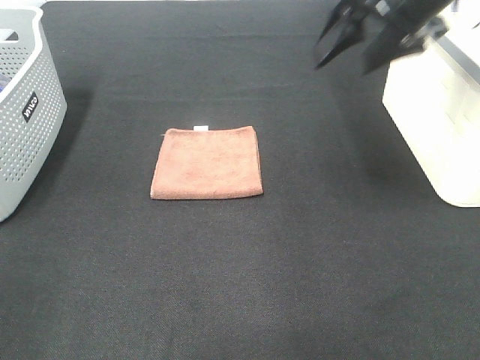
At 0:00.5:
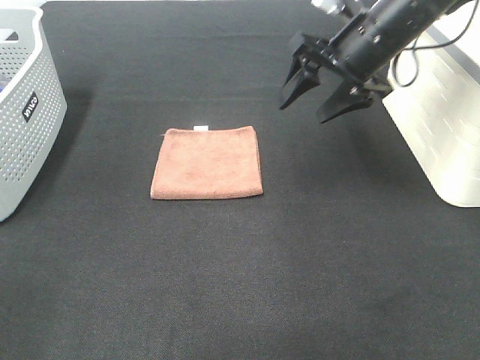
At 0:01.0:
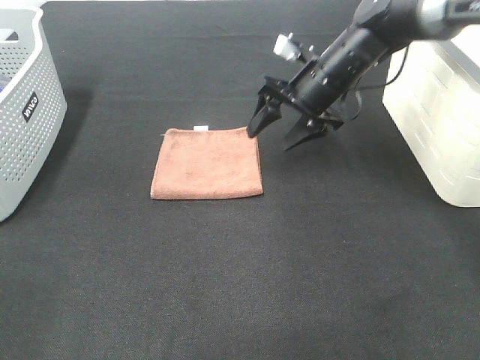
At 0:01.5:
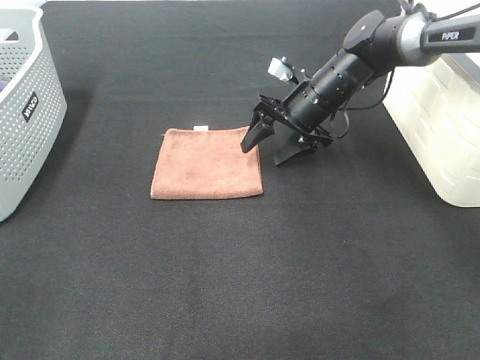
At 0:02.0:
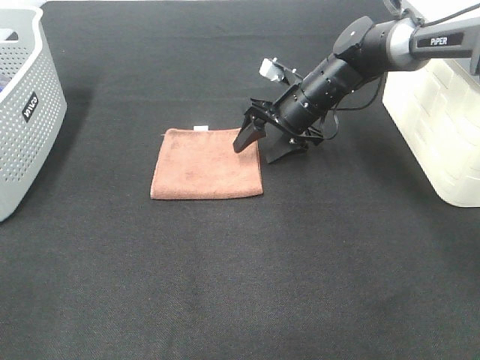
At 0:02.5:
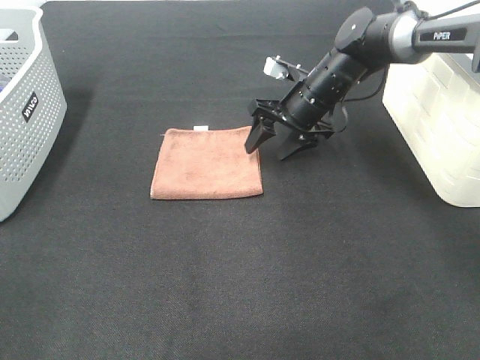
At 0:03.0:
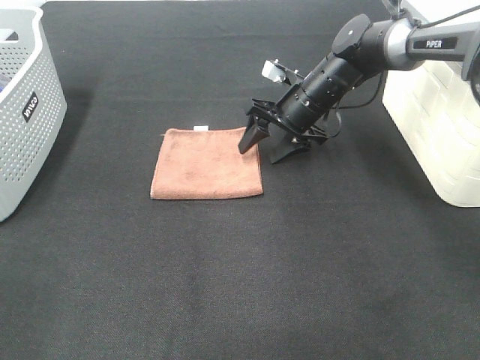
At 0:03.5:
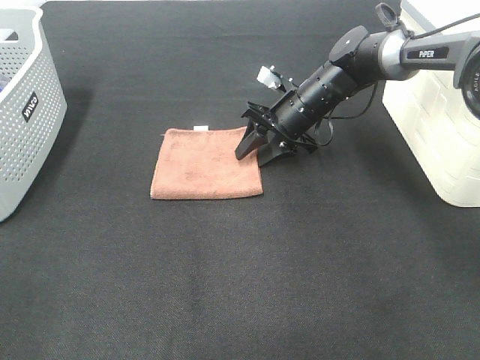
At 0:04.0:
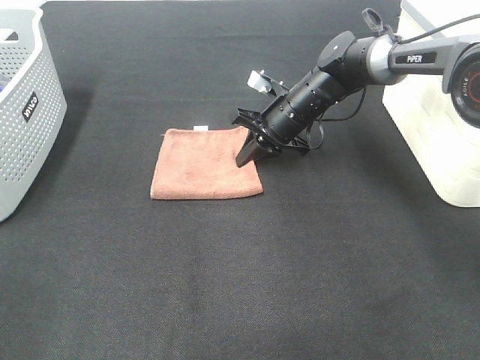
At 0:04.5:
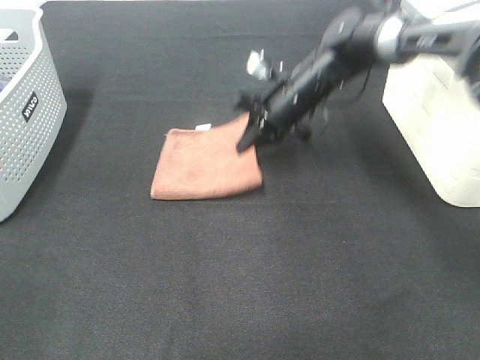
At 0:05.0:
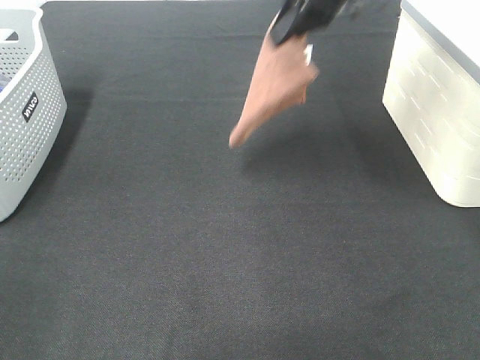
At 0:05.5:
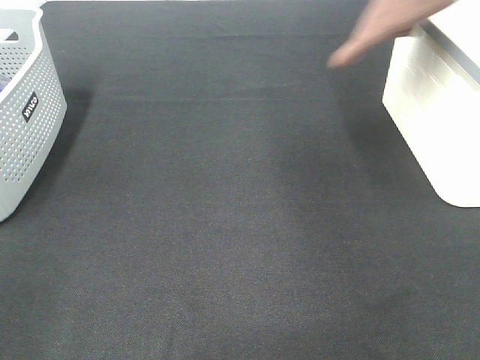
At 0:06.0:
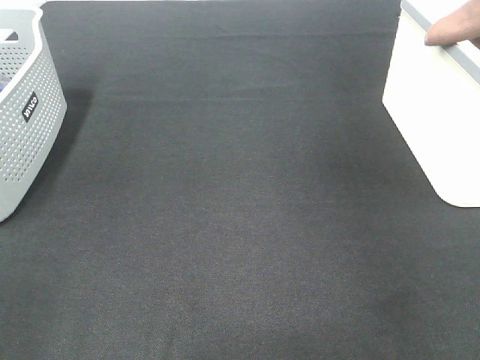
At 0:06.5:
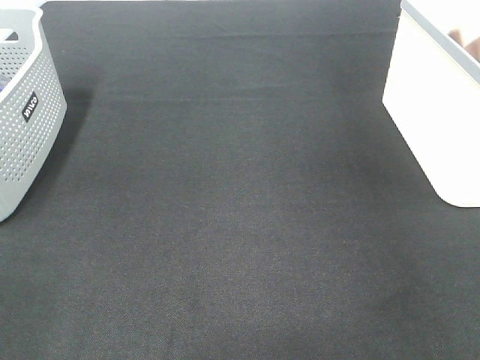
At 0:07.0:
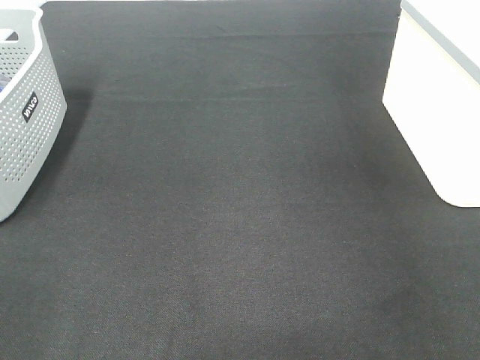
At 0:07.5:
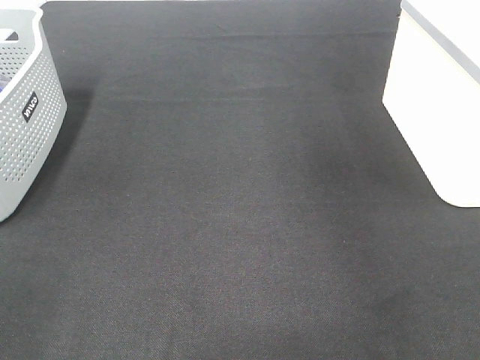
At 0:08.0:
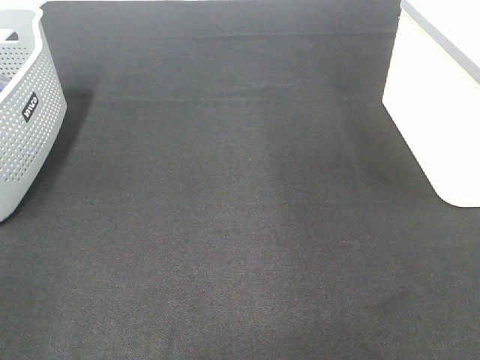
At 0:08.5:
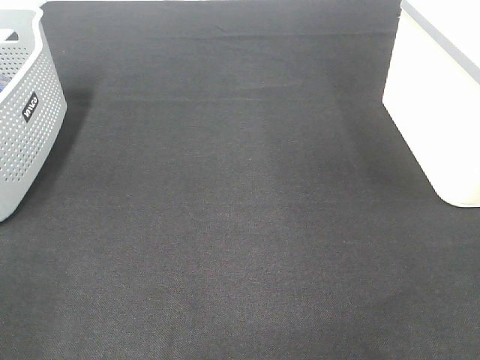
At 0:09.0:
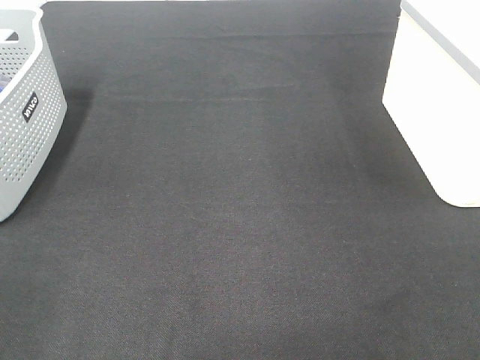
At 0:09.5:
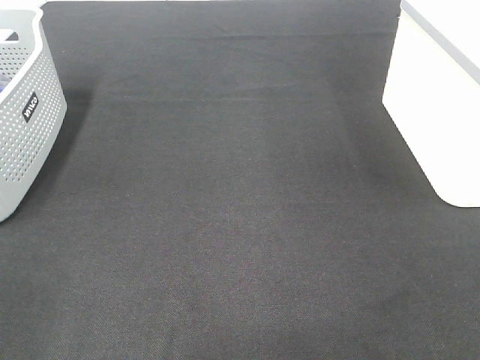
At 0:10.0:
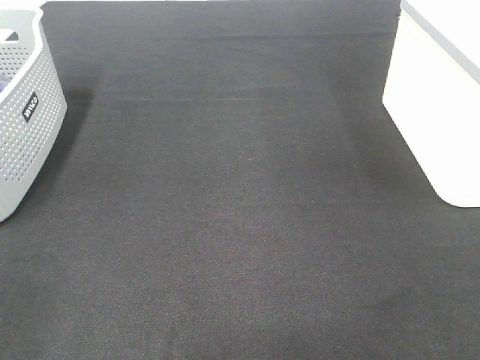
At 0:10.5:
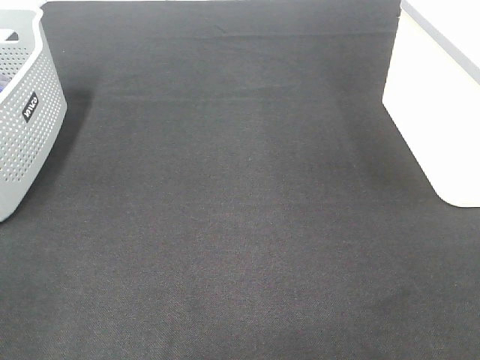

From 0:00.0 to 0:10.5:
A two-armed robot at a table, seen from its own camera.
Step, from 0:00.0 to 0:04.0: Right hand: grab the folded brown towel.
Step, from 0:04.5 to 0:06.5: Right hand: place the brown towel in right basket.
From 0:00.0 to 0:02.0: The right gripper goes about 20 cm downward and forward.
From 0:02.0 to 0:04.0: The right gripper closes up.
From 0:04.0 to 0:06.5: The right gripper travels to the right and upward by approximately 40 cm.

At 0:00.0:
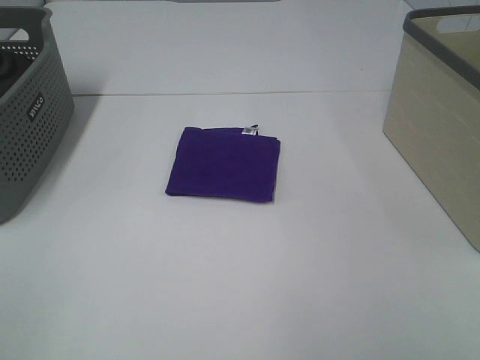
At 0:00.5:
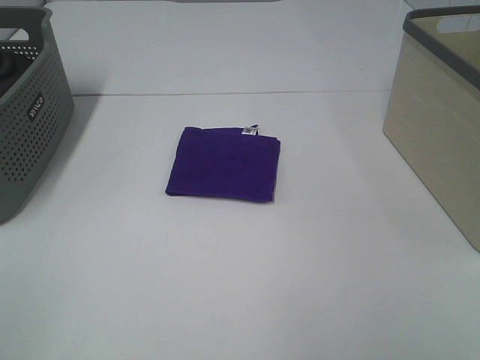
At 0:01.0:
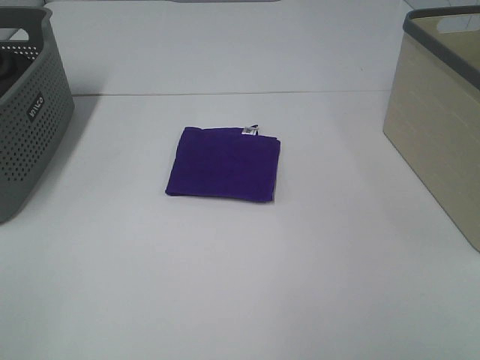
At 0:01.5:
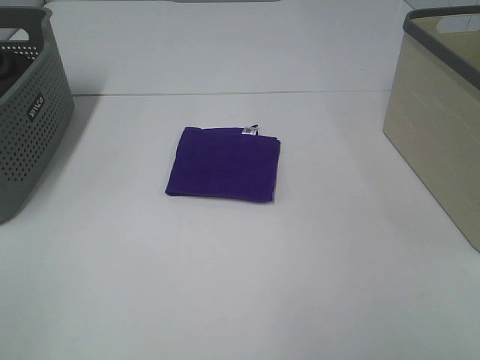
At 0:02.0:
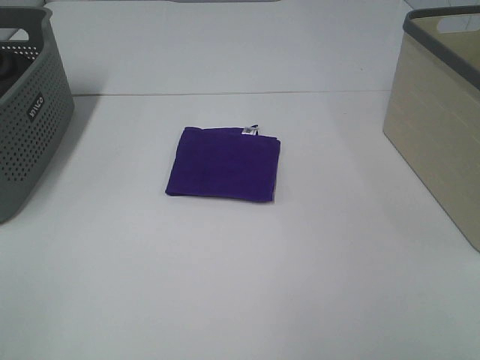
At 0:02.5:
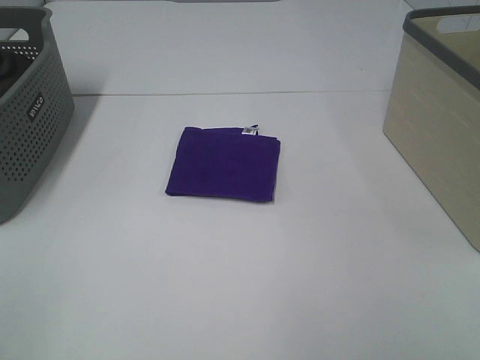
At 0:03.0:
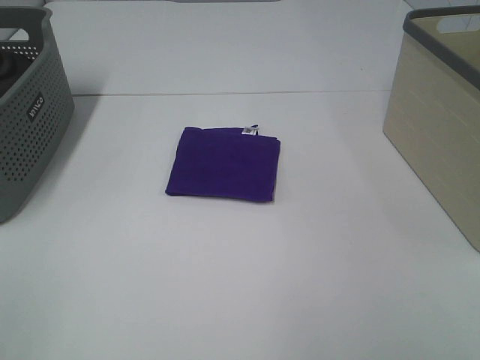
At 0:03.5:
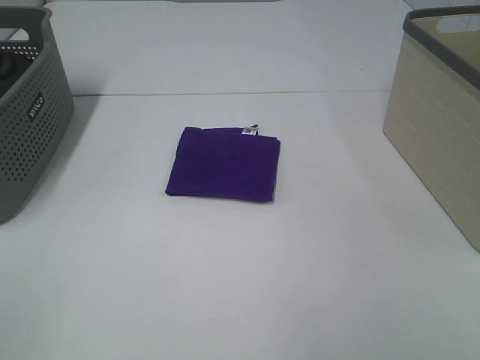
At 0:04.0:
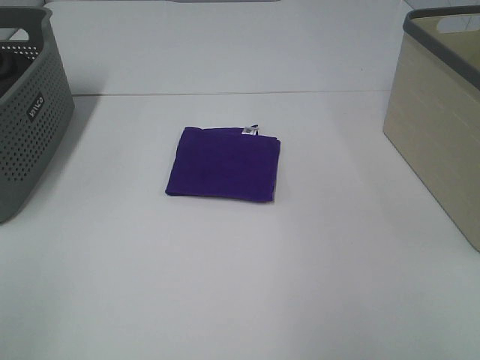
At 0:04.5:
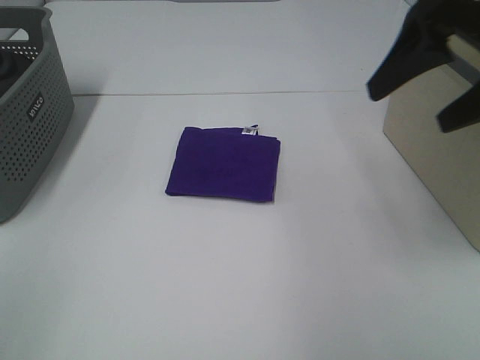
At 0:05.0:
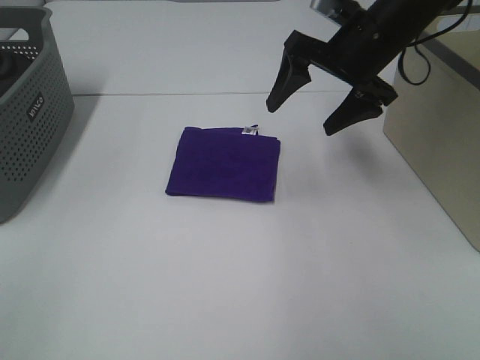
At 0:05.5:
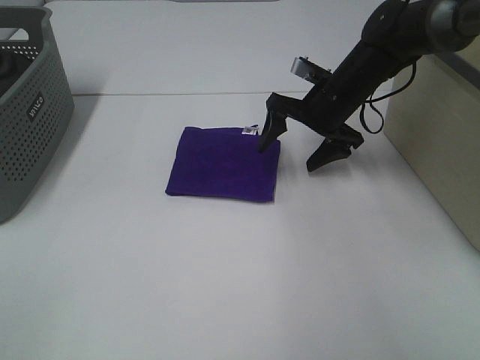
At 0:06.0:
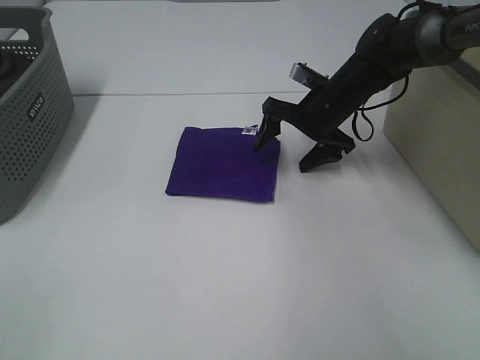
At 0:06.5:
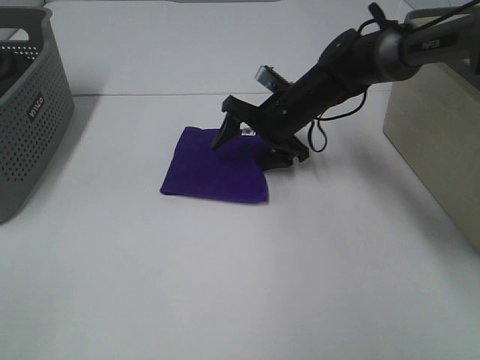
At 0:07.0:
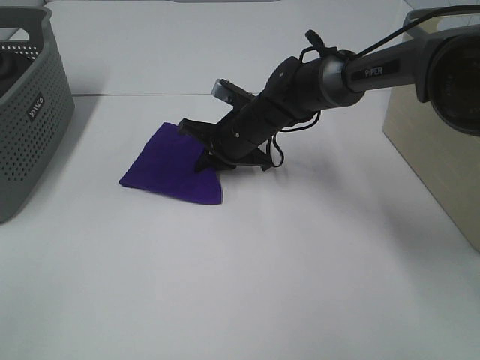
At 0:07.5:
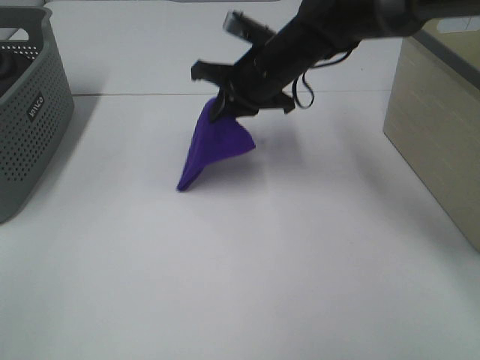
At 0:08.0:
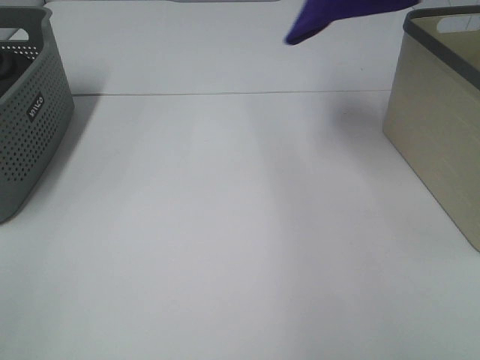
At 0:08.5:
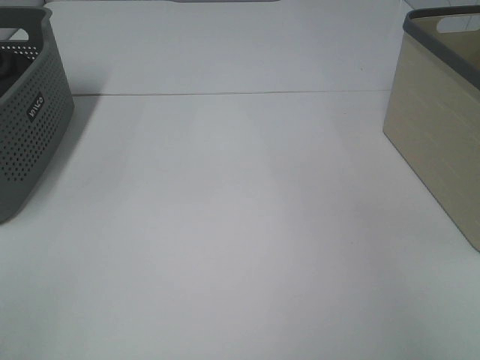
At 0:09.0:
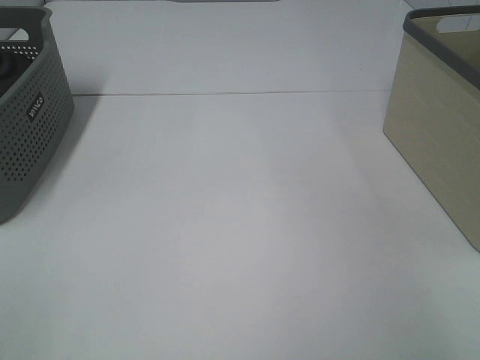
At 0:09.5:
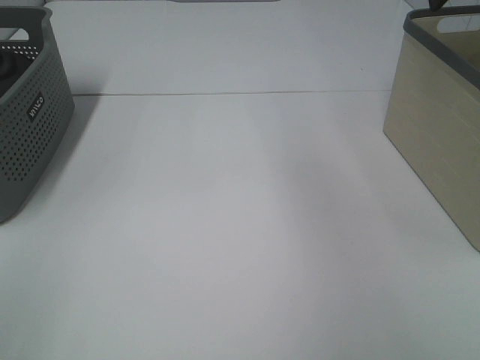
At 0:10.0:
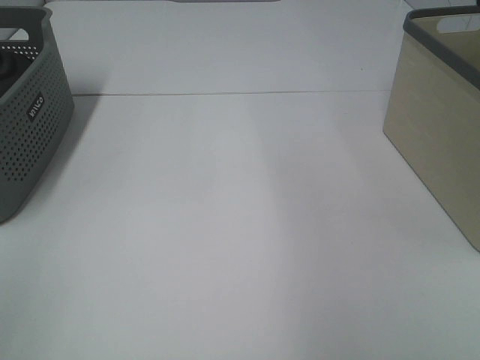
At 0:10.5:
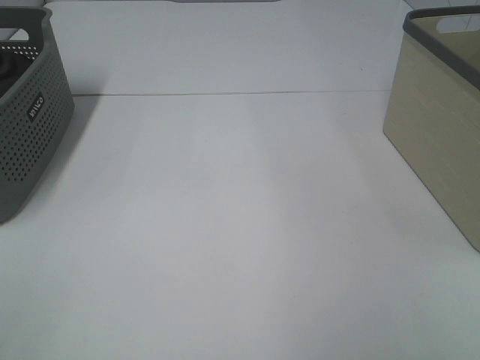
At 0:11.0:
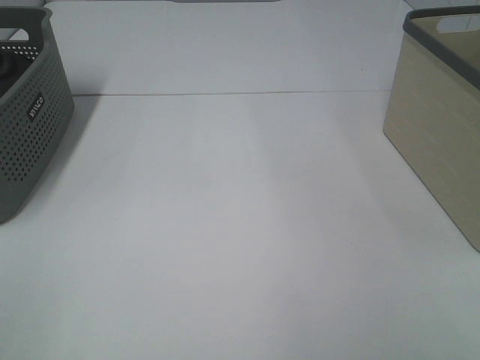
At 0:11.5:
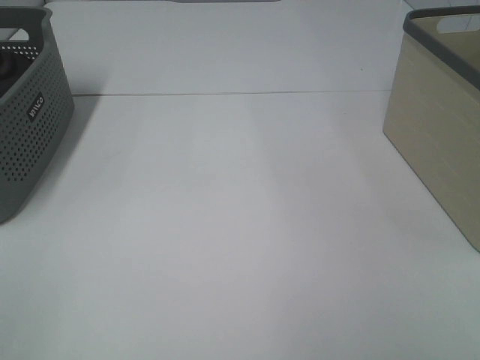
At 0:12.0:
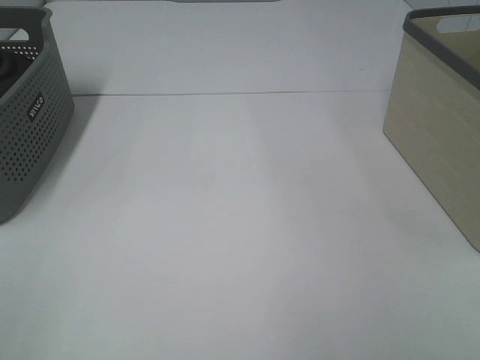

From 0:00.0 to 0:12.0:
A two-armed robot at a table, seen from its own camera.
Step, from 0:00.0 to 0:06.5: Right hand: grab the folded purple towel.
Step, from 0:07.0 to 0:09.0: Right hand: place the purple towel in right basket.
From 0:00.0 to 0:02.0: The two grippers keep their place.
From 0:04.0 to 0:06.0: The right gripper heads forward, downward and to the left, covering some 40 cm.
From 0:06.0 to 0:08.0: The right gripper shifts roughly 30 cm upward, and closes its fingers.
From 0:08.0 to 0:10.0: The right gripper goes some 15 cm backward, reaches some 20 cm to the right, then returns, and opens up.

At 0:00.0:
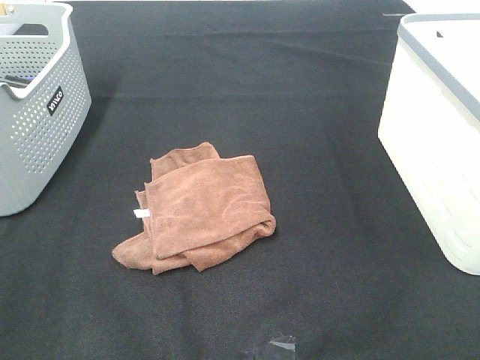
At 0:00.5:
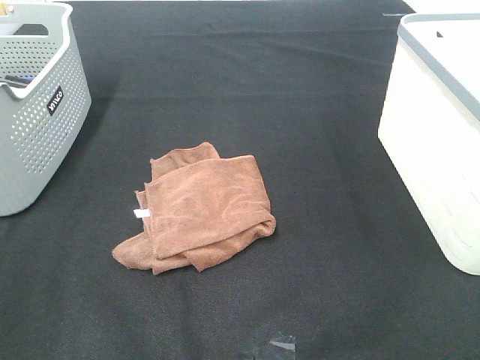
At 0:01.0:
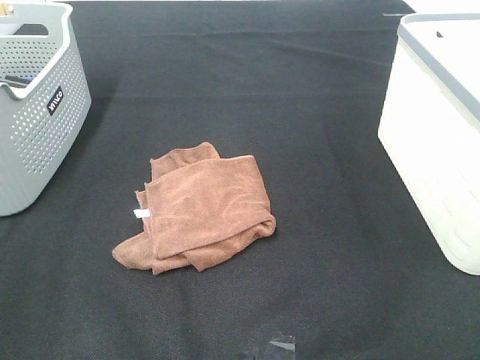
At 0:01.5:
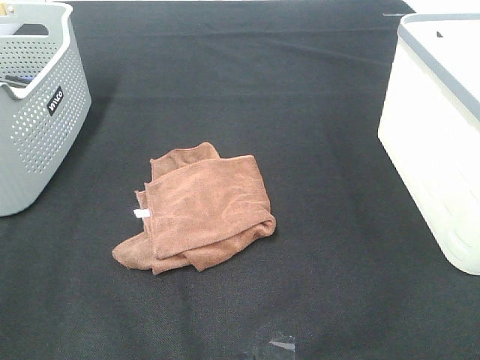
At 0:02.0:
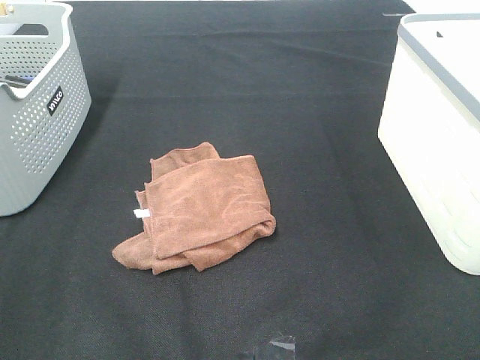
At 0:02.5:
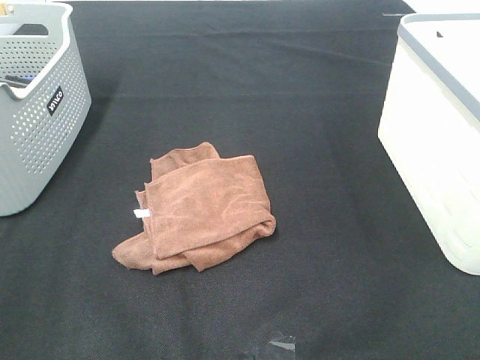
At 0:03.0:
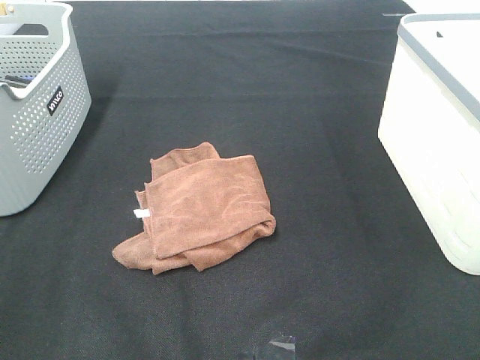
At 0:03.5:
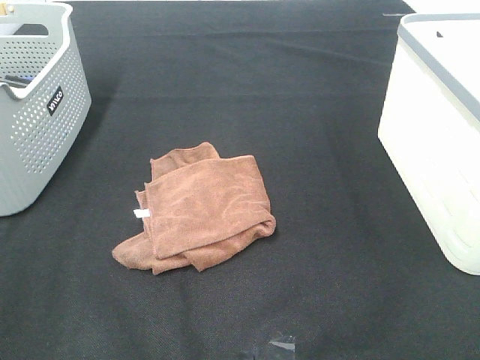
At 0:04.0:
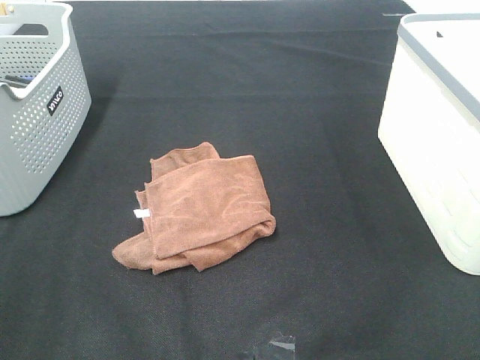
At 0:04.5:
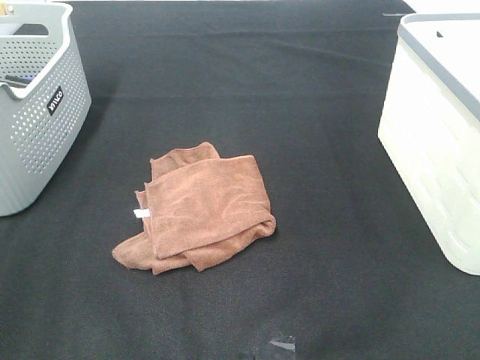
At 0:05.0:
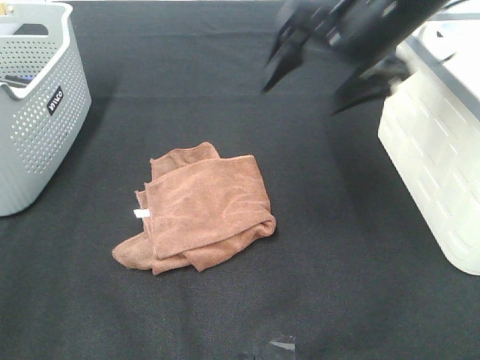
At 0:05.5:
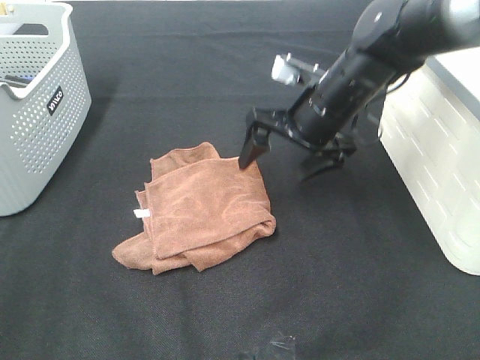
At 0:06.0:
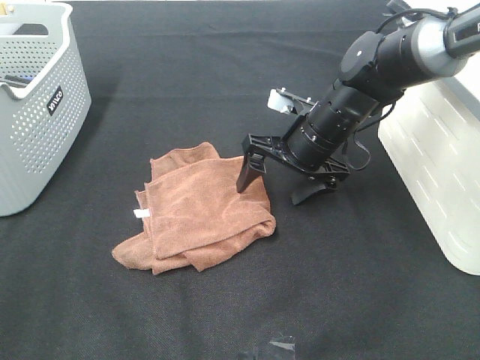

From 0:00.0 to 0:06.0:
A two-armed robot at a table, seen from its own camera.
From 0:00.0 to 0:02.0: Both grippers stay about where they are.
From 0:04.0 to 0:06.0: The right gripper shifts approximately 40 cm forward, downward and to the left.
